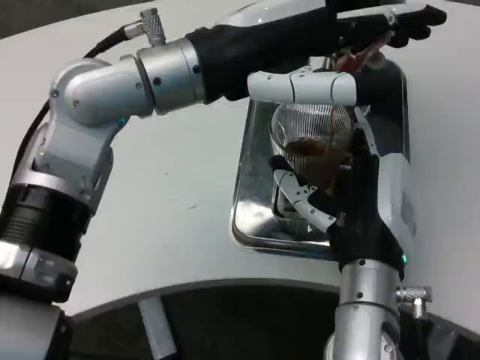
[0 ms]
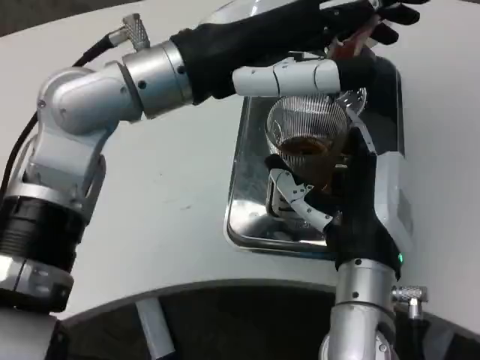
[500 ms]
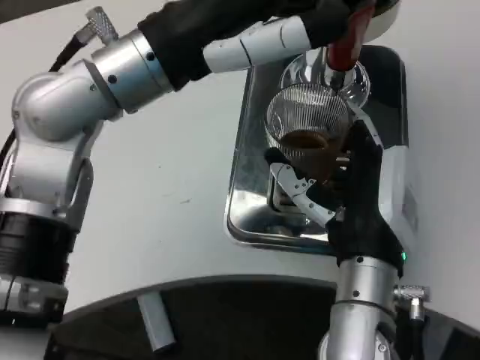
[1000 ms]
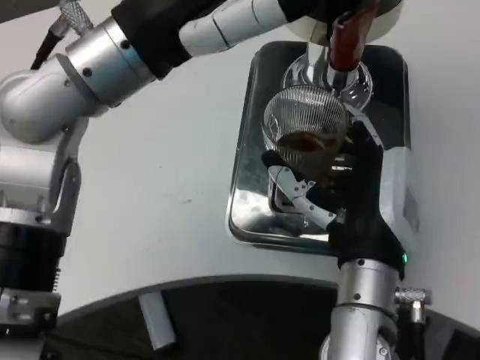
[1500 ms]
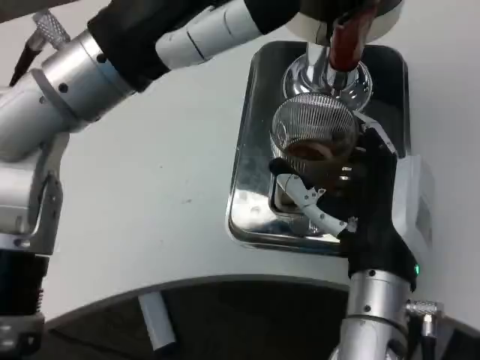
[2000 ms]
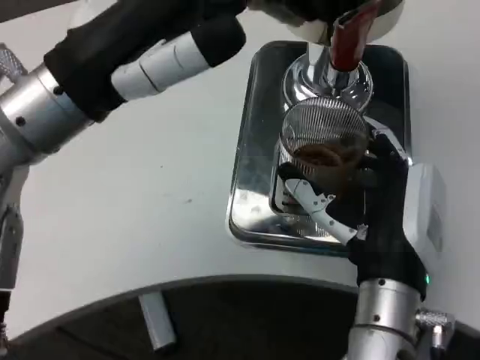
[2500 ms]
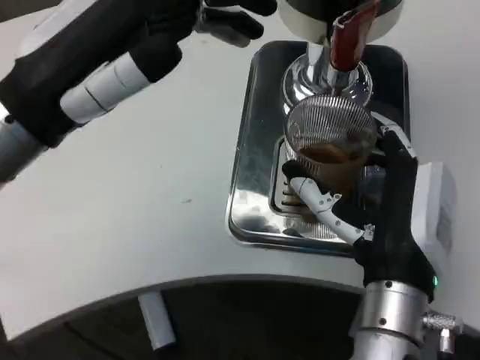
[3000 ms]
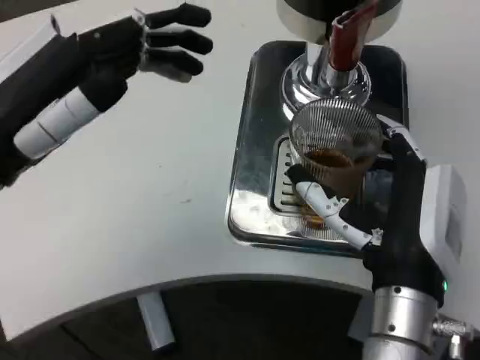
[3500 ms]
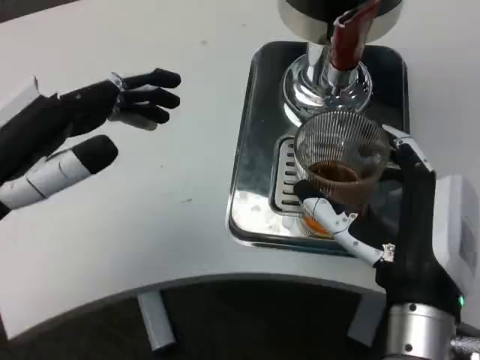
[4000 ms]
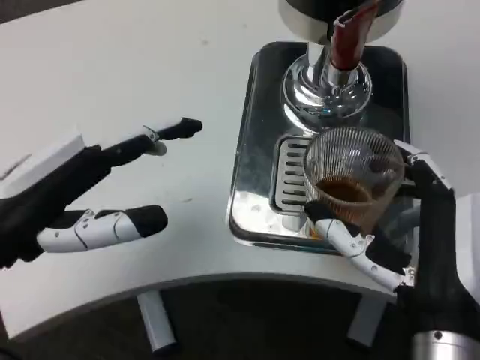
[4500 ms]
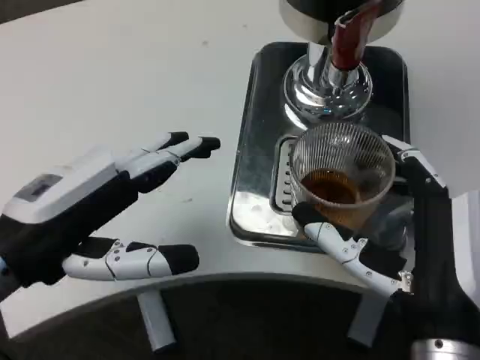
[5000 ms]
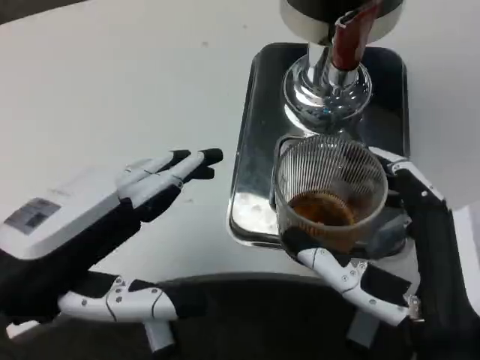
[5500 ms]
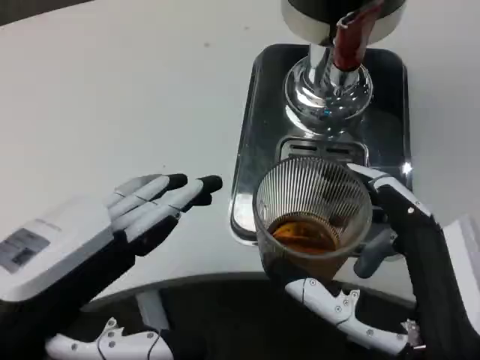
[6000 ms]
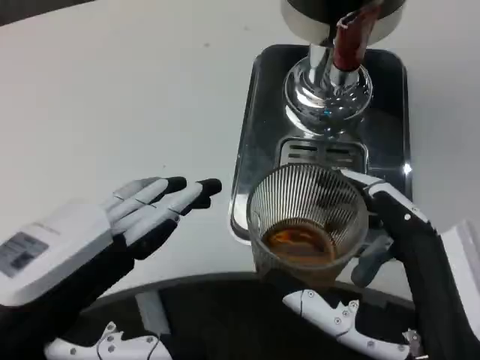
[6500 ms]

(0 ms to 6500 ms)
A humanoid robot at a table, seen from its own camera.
Task of the whole recording: Grasp the cup under the faucet to collect the drink, then remove the cup.
0 ms - 2000 ms: The left hand moves about 5 cm.
2000 ms - 4500 ms: The left hand moves downward, to the left and backward, approximately 15 cm; the right hand heads backward, covering roughly 5 cm.
4500 ms - 6500 ms: Both hands travel together backward, approximately 5 cm.

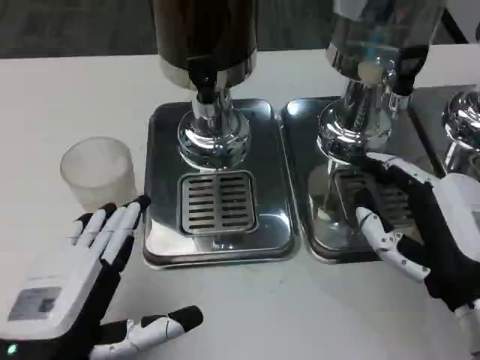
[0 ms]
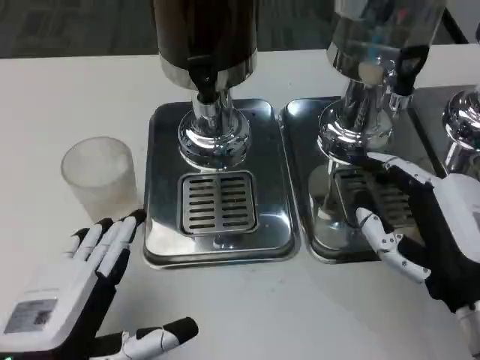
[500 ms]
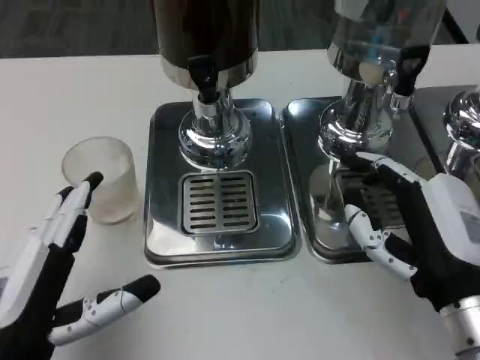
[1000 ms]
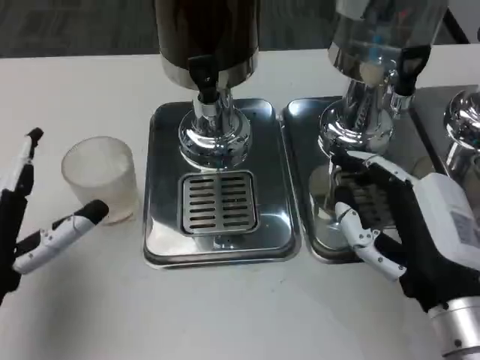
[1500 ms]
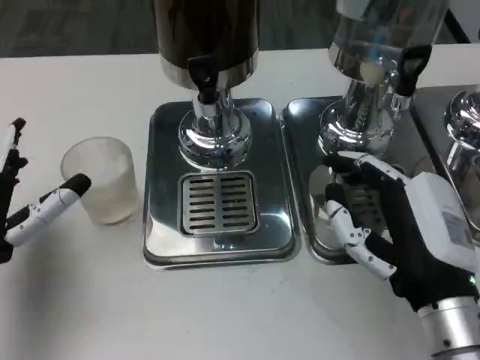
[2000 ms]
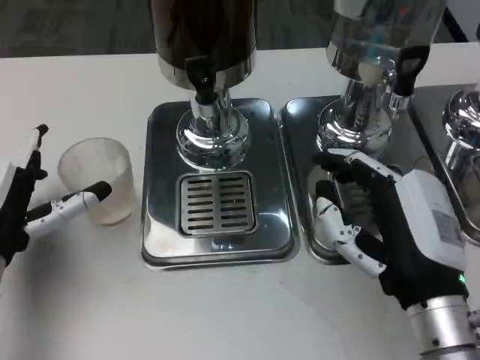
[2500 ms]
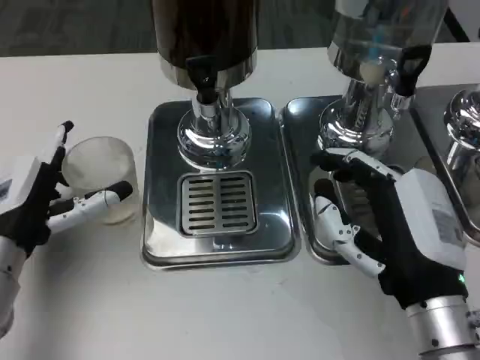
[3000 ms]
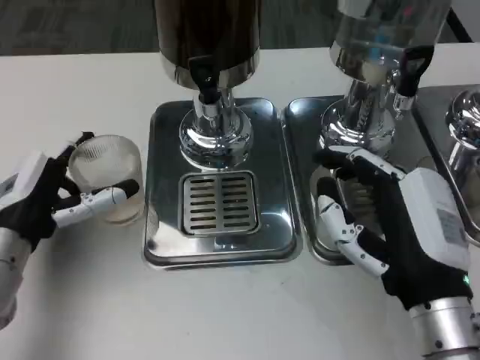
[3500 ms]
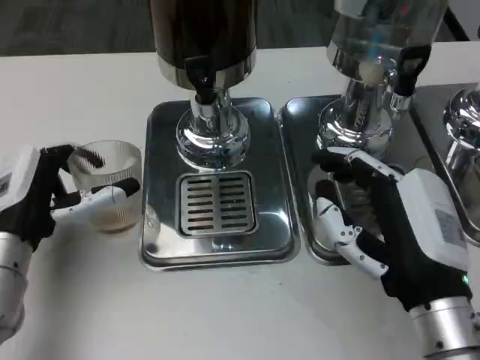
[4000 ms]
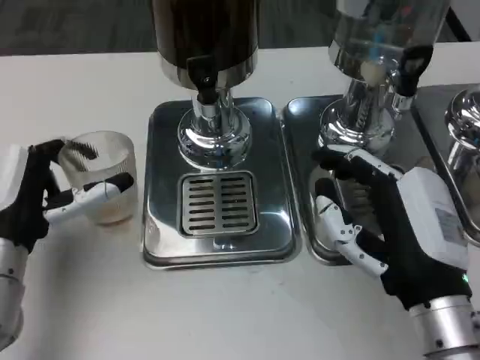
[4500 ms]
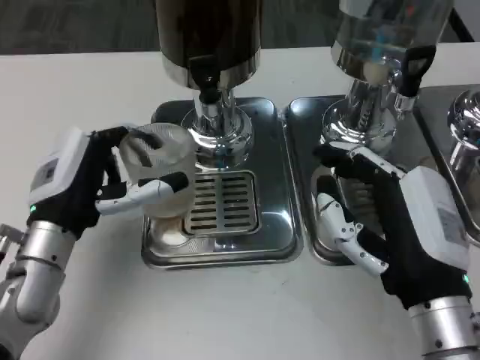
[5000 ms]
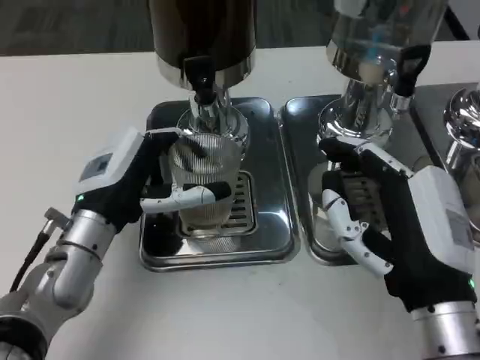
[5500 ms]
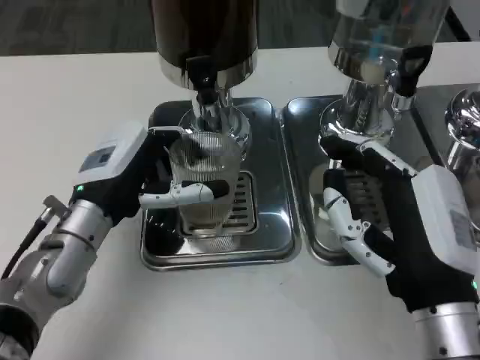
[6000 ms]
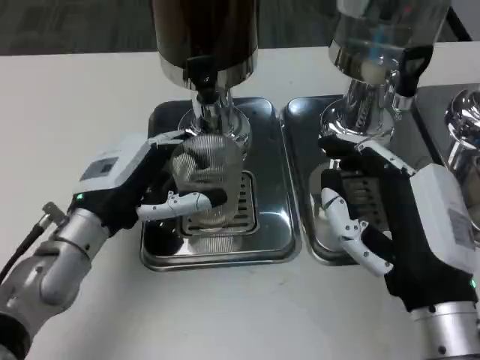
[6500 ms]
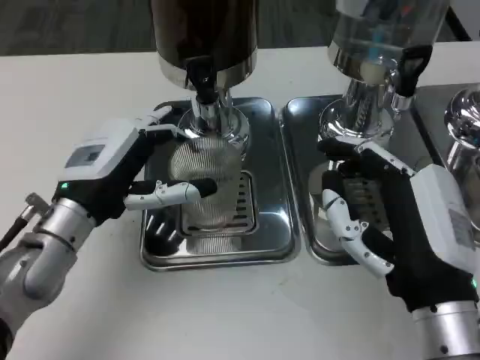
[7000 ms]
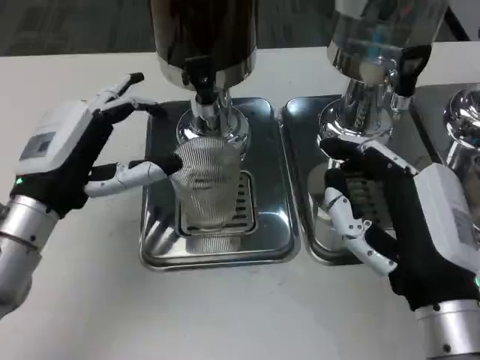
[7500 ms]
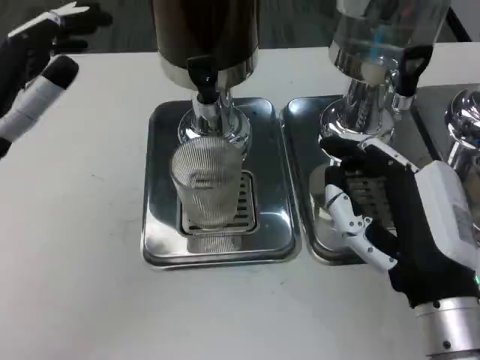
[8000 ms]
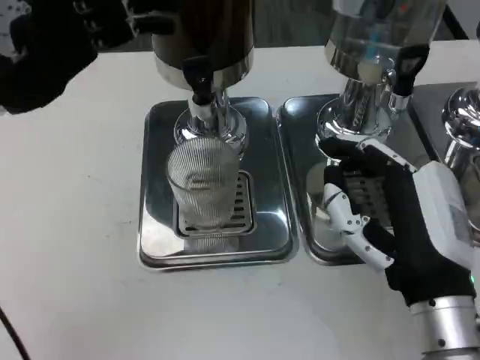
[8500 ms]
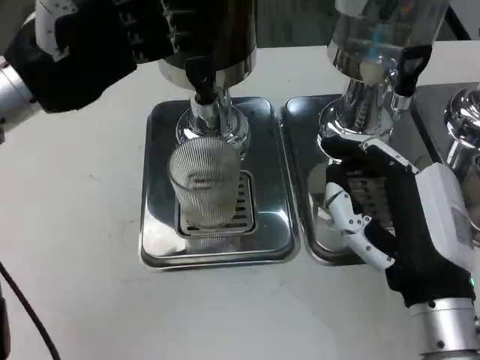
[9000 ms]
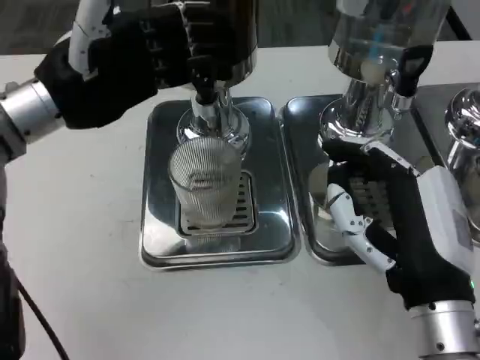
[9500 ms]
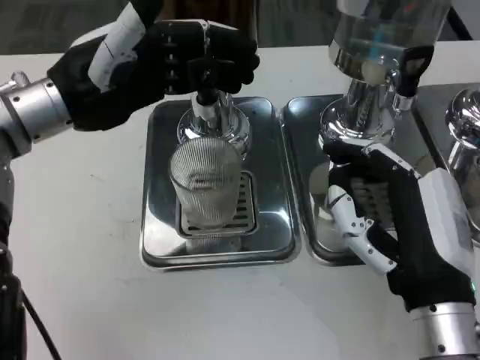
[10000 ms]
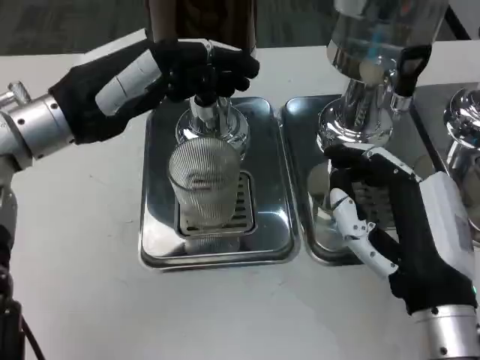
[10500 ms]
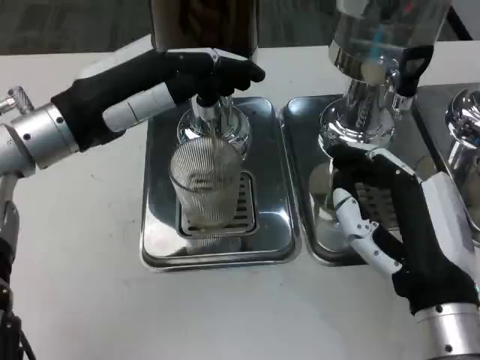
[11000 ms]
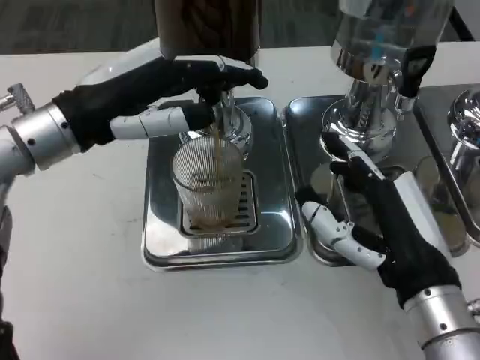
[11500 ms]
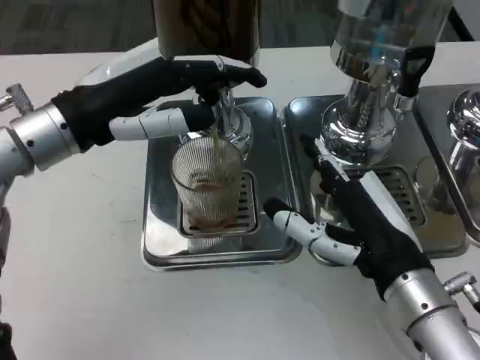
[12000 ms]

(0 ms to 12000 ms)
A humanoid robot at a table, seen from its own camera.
Task of the whole recording: Grasp the cup under the faucet to collect the drink, then remove the cup.
0 ms - 2000 ms: The left hand shifts roughly 15 cm forward and to the left.
4000 ms - 6000 ms: The left hand shifts approximately 5 cm to the right.
6000 ms - 8000 ms: The left hand shifts some 10 cm upward and to the left.
8000 ms - 10000 ms: The left hand goes about 10 cm forward.

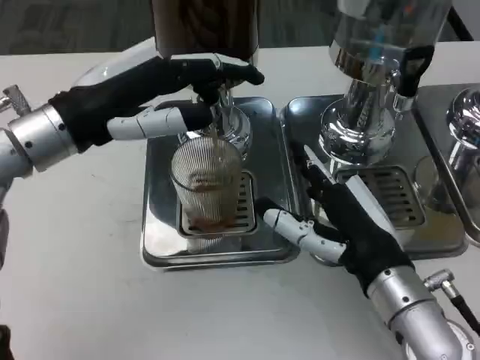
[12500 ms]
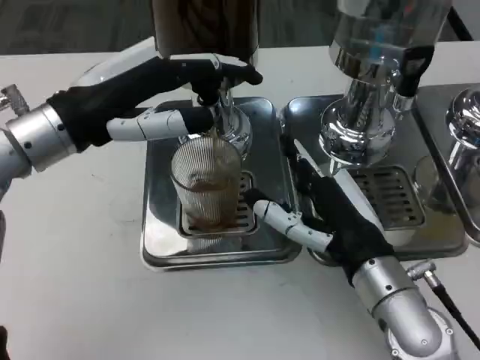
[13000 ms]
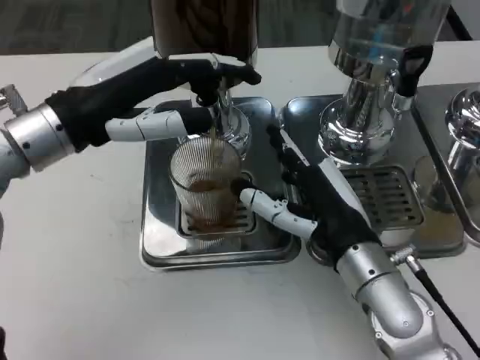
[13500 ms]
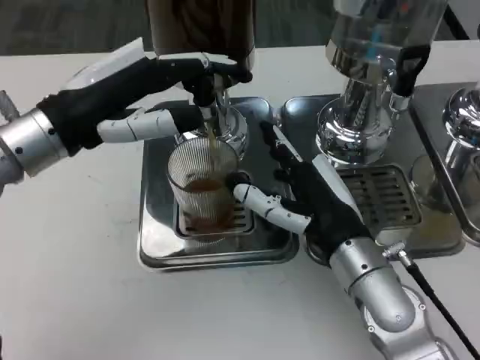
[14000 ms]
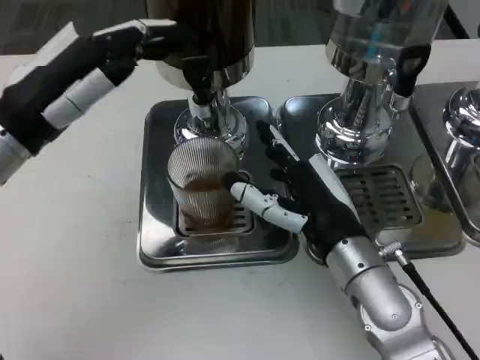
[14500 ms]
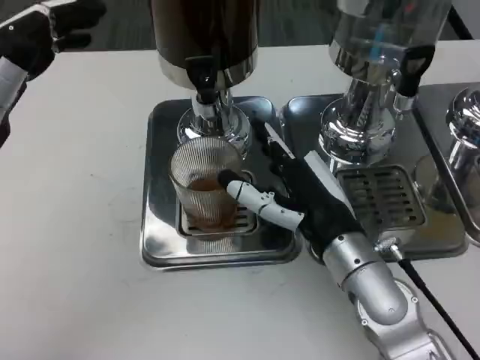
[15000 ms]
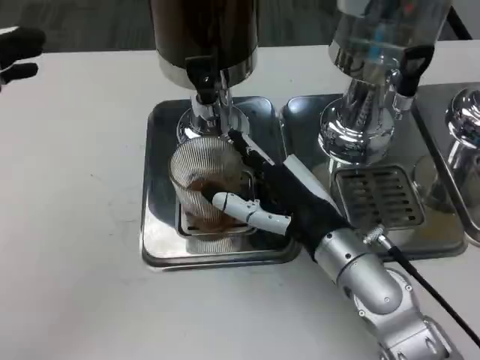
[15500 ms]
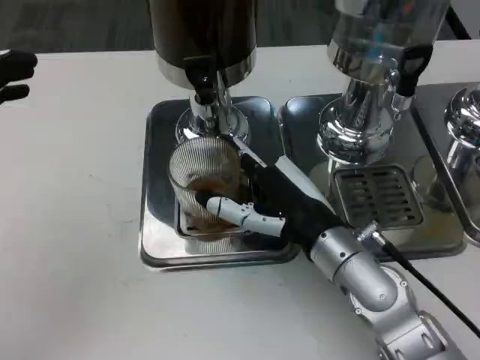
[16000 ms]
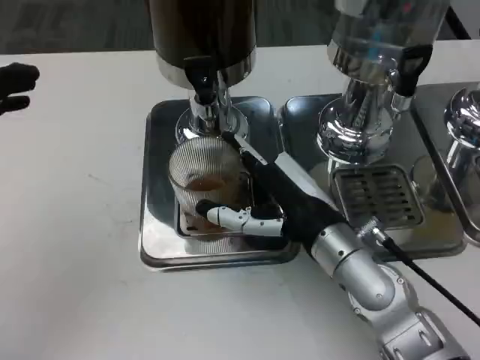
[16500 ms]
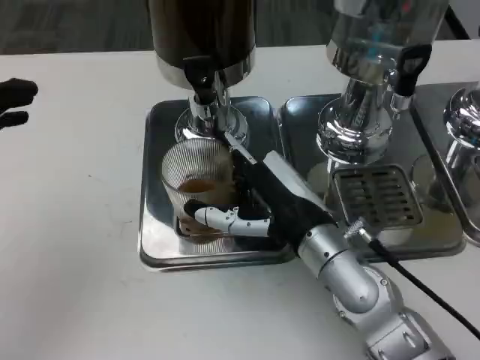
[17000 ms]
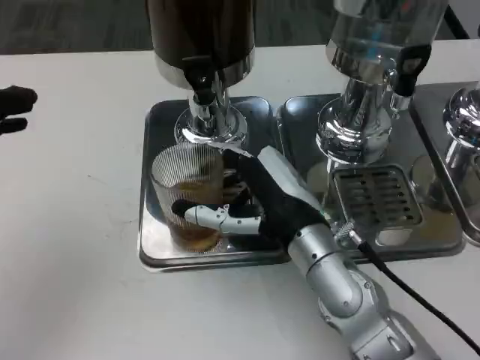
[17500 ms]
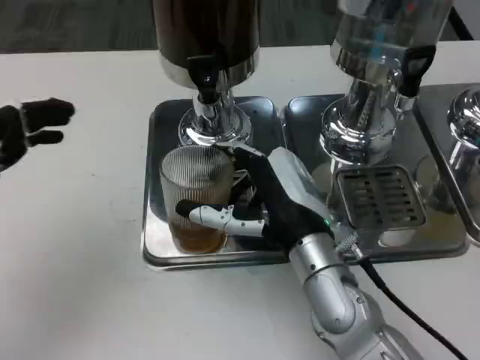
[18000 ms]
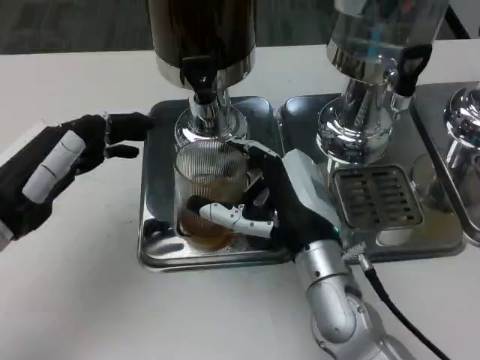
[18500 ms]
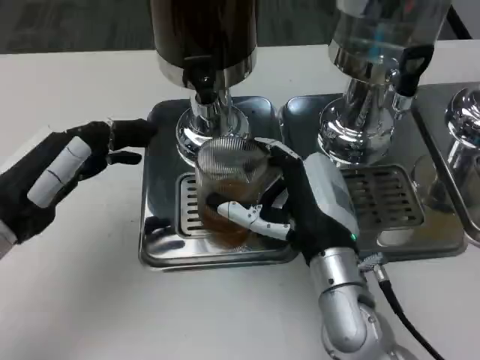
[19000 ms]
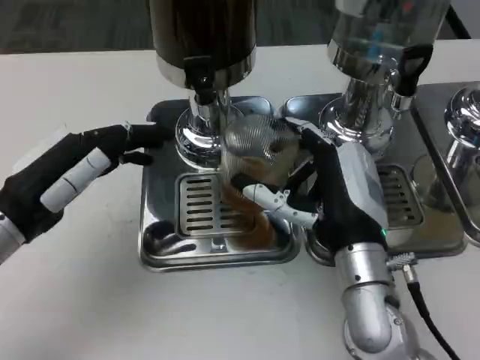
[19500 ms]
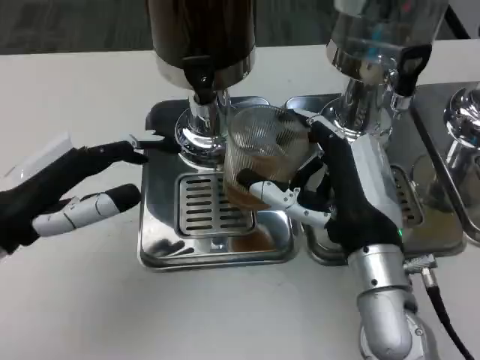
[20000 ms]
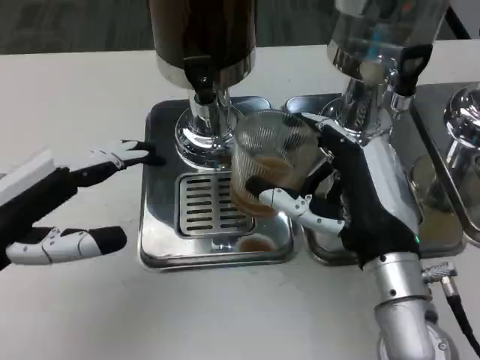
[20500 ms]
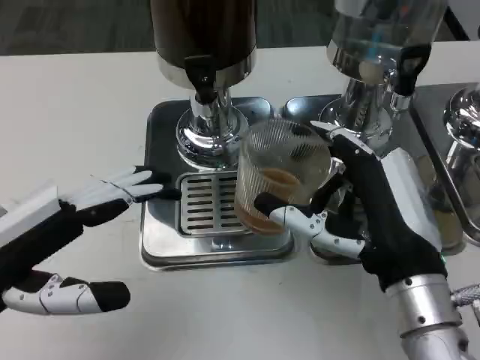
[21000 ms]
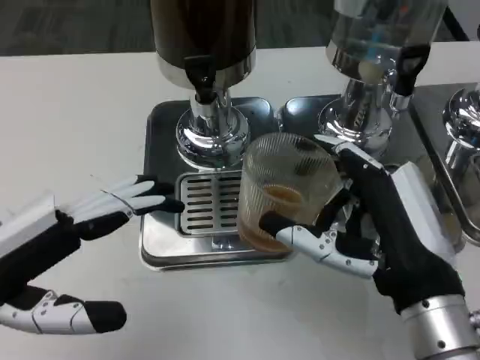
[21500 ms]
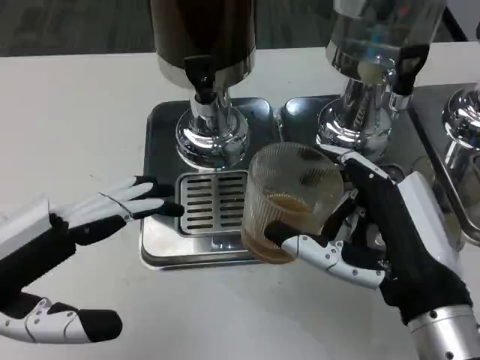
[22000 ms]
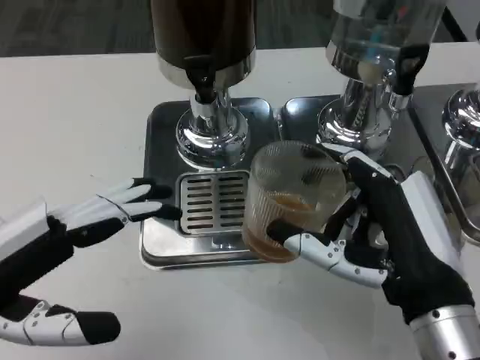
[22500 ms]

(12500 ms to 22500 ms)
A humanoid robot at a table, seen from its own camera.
Task of the whole recording: Grasp the cup under the faucet to collect the drink, then remove the cup.
14500 ms - 16500 ms: The left hand heads backward and to the left, covering some 10 cm.
16500 ms - 18500 ms: The left hand changes place by approximately 5 cm.
18500 ms - 20500 ms: The right hand changes place by about 5 cm, while the left hand moves some 5 cm.
20500 ms - 22500 ms: Both hands move backward, roughly 5 cm.
